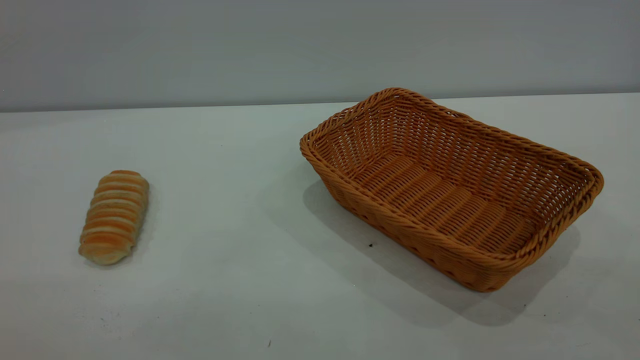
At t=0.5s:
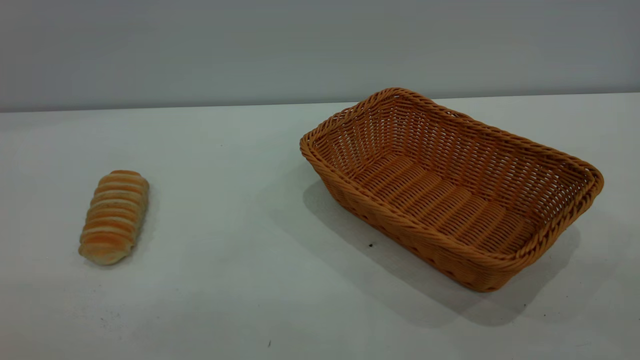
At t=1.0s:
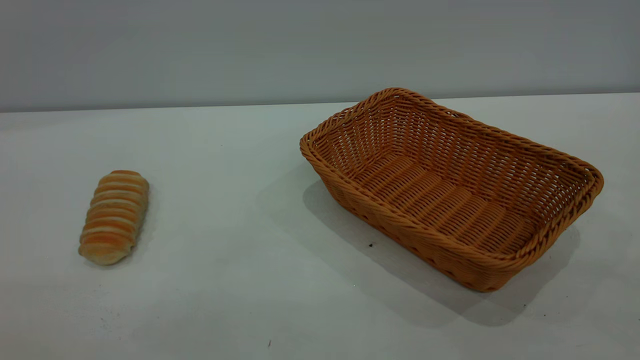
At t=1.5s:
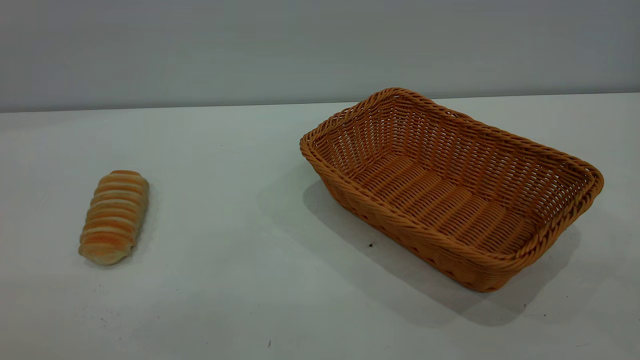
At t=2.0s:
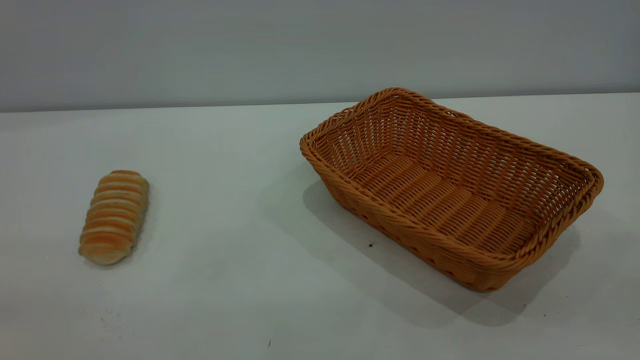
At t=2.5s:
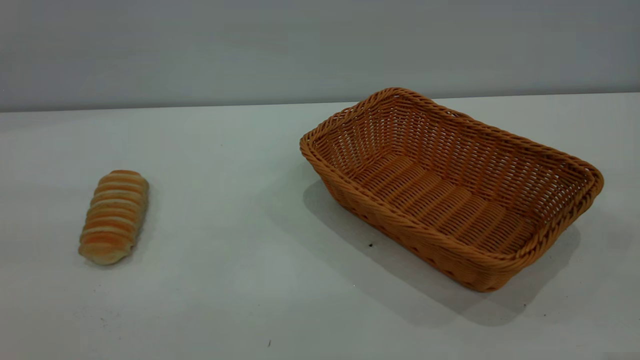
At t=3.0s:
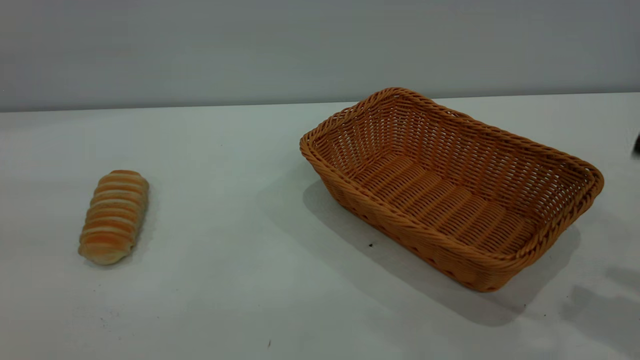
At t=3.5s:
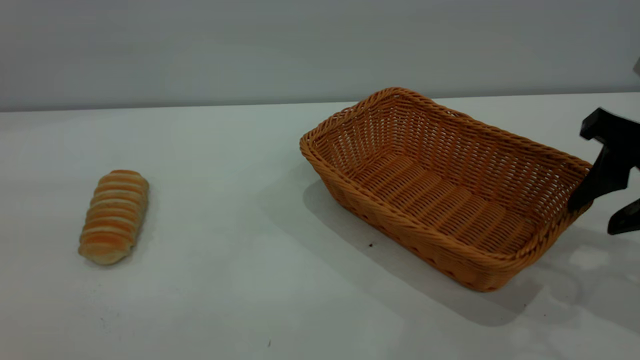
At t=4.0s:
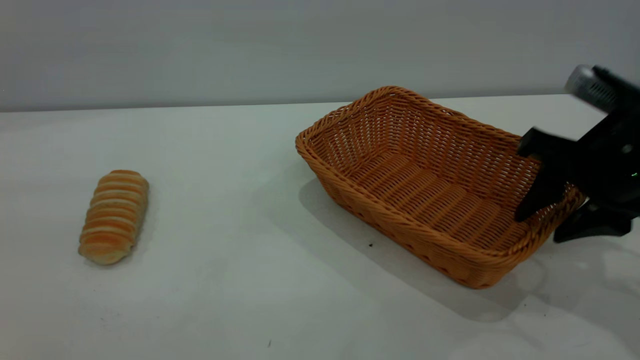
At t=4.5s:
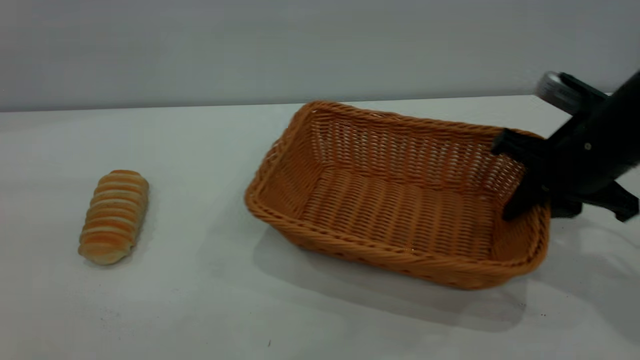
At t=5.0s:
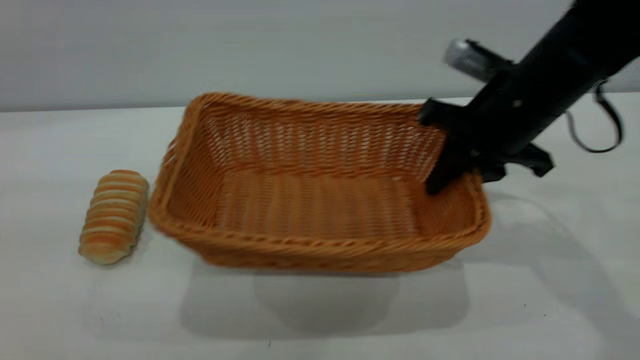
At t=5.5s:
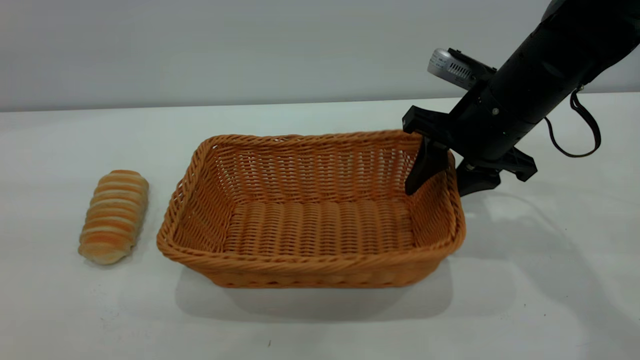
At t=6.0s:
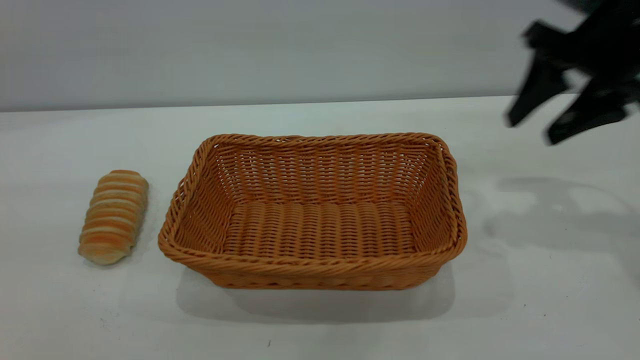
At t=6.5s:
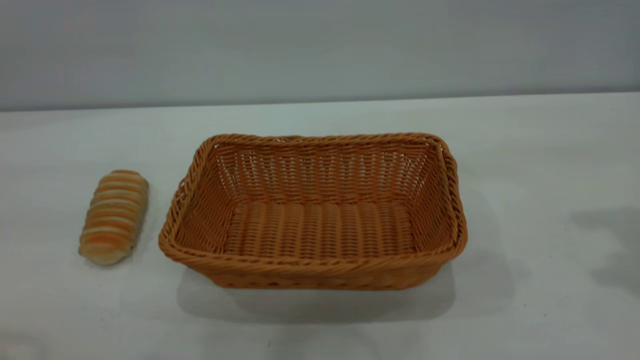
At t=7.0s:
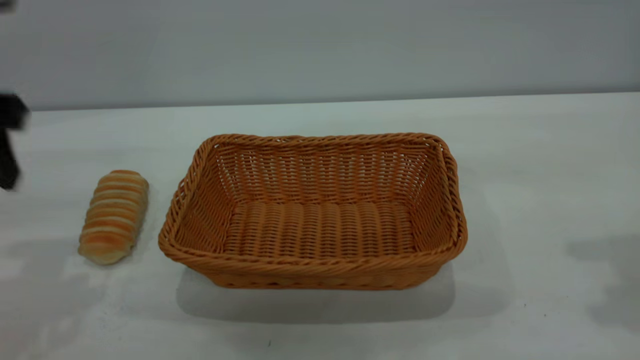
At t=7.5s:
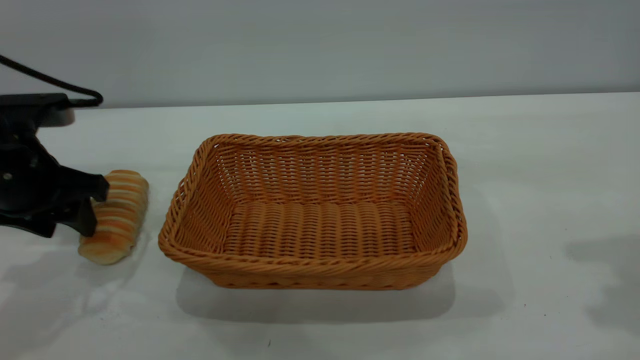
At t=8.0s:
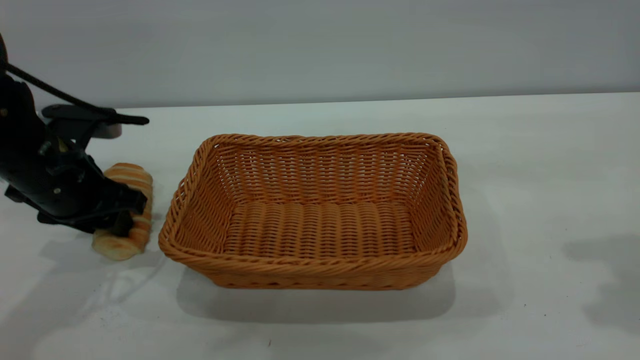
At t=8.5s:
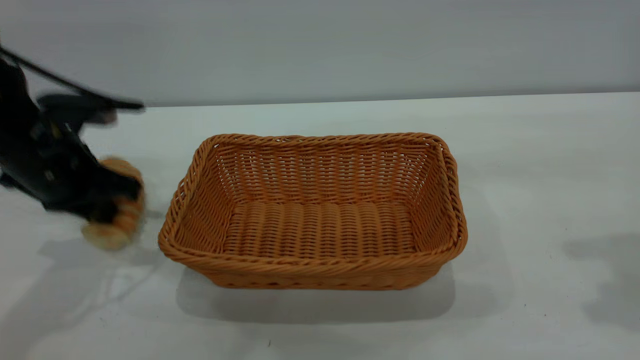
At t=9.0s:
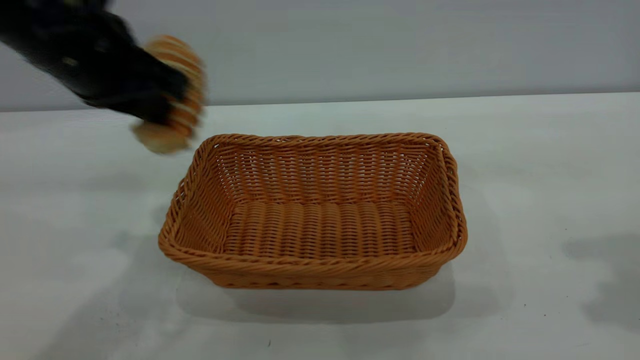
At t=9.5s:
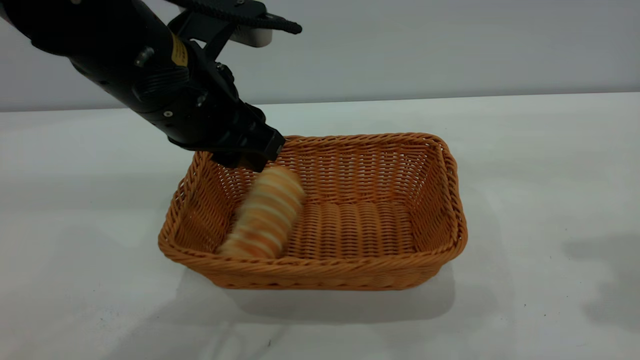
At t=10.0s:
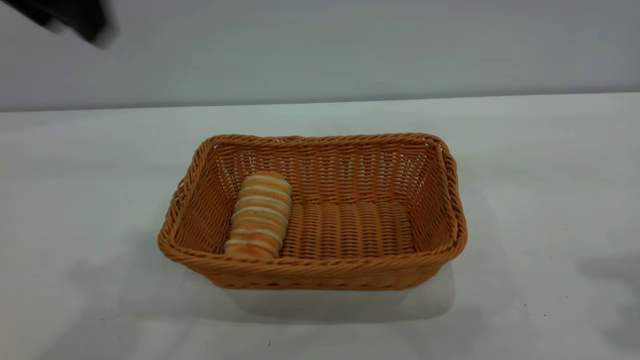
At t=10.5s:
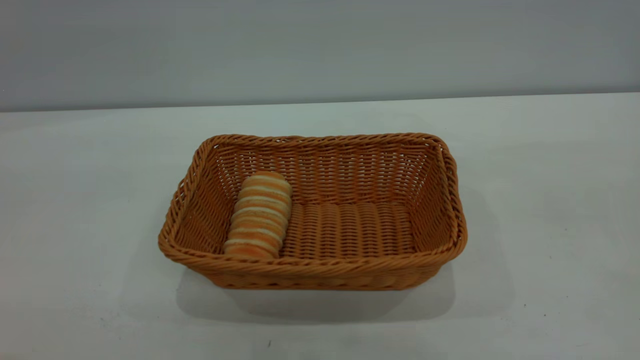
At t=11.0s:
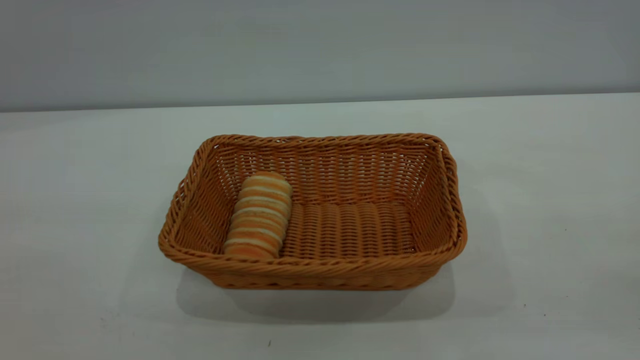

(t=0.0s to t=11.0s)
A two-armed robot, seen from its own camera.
Task of the whole recording: One hand grasps the yellow basket and places it in the middle of the table, while the other hand picks up the long bread and puts it into the yellow basket.
Step, t=0.0s - t=5.5s: Move the basket to the center of view.
Step, t=9.0s - t=9.5s: place the bread into the basket.
t=2.0s - t=3.5s: The right gripper goes approximately 30 cm forward and downward.
t=3.5s - t=5.5s: The right gripper heads to the left and forward, covering about 15 cm, and closes, then reopens.
t=5.5s - t=7.5s: The right gripper moves upward, to the right and backward, approximately 25 cm, while the left gripper travels downward and forward by some 30 cm.
t=7.5s - t=9.0s: The left gripper shifts some 15 cm to the right and upward, and closes up.
t=9.0s - t=11.0s: The right gripper is displaced backward by some 25 cm. Meanwhile the left gripper heads backward, upward and to the left, covering about 35 cm, and opens up.
